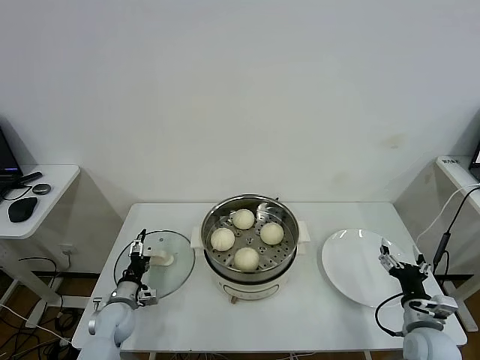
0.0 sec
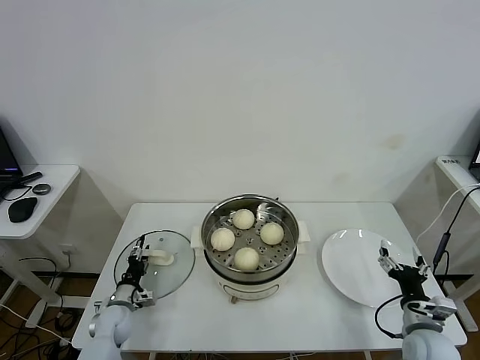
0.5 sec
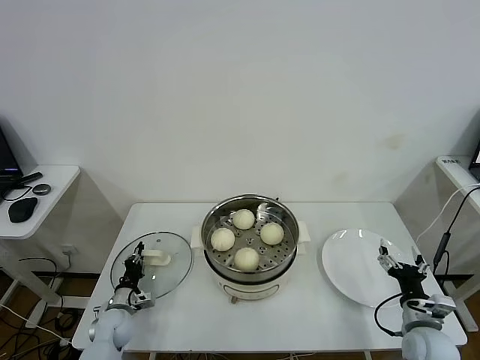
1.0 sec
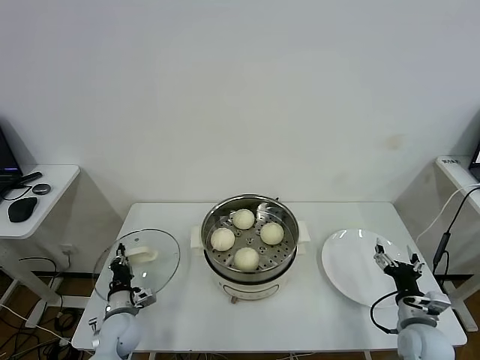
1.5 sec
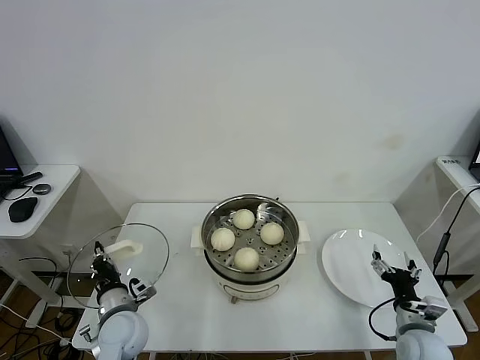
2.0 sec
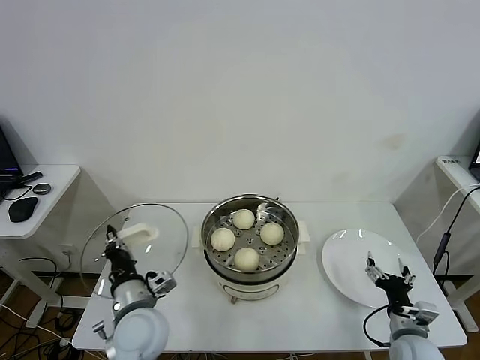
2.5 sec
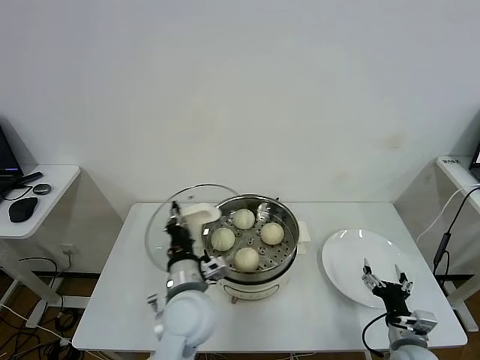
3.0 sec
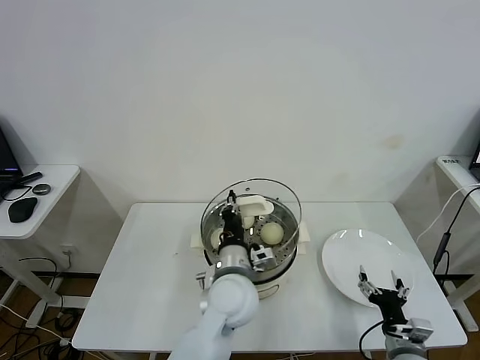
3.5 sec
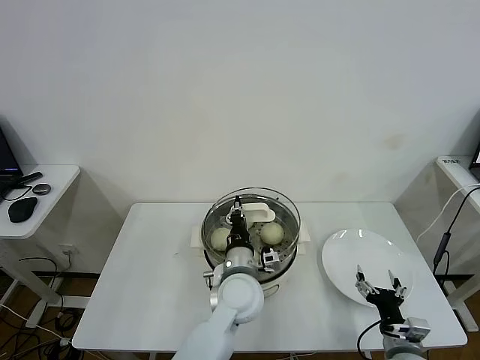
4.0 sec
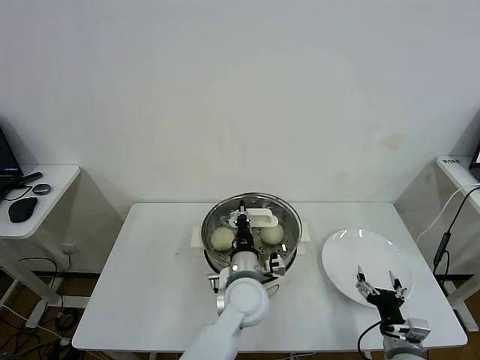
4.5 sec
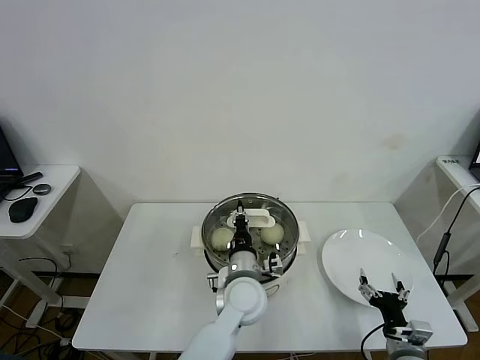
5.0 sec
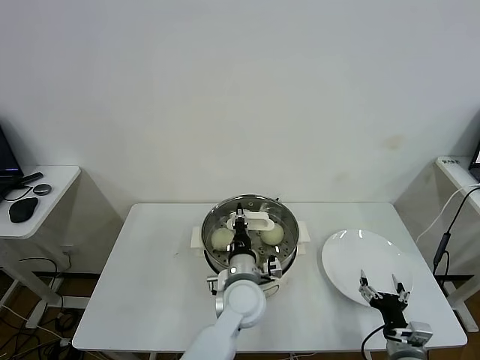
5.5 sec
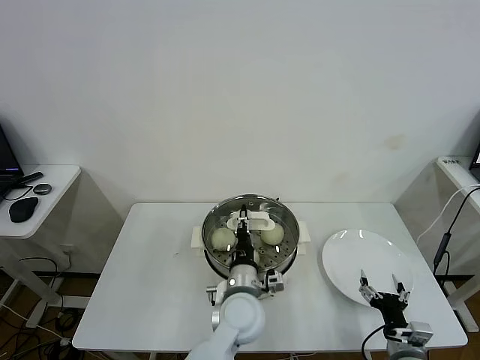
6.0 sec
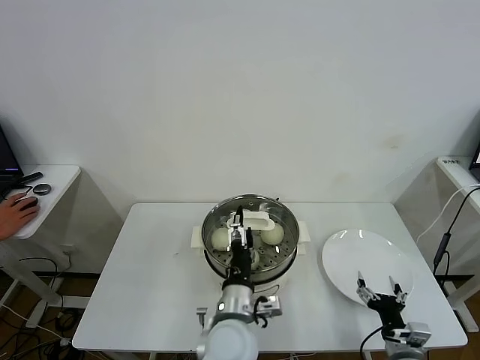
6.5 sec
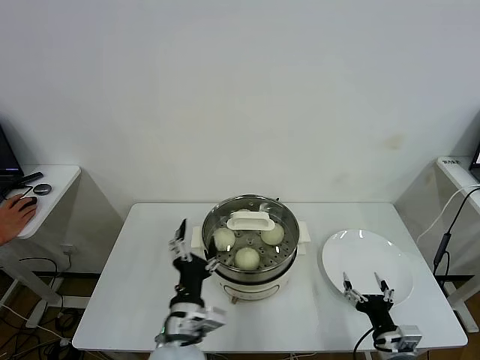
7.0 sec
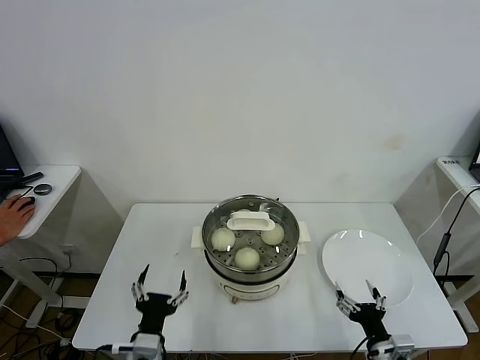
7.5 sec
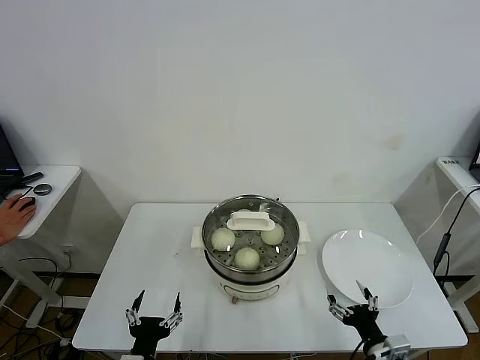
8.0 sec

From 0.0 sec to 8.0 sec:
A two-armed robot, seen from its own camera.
Task of the whole recording: take steamed baozi put them in steamer.
Step, from 1.5 sec to 6.0 sec: Place the pot lid on the steamer with left gripper.
From 0.0 sec to 2.0 sec: The left gripper goes some 15 cm upward, to the right and backward, and closes its fingers.
From 2.0 sec to 4.0 sec: The right gripper ends up some 5 cm from where it was; the left gripper heads to the right, covering approximately 25 cm.
From 4.0 sec to 6.0 sec: The grippers make only small movements.
From 6.0 sec to 8.0 sec: The right gripper moves about 5 cm. The left gripper is displaced to the left and backward by roughly 25 cm, and opens its fingers.

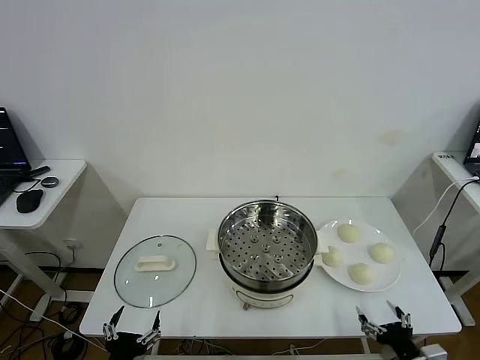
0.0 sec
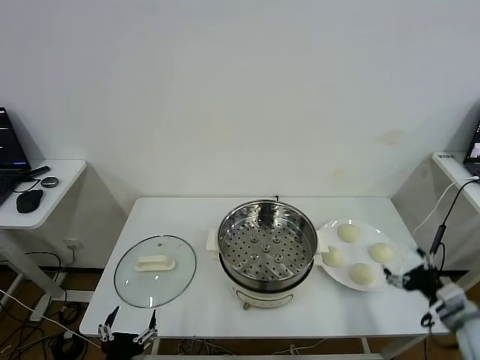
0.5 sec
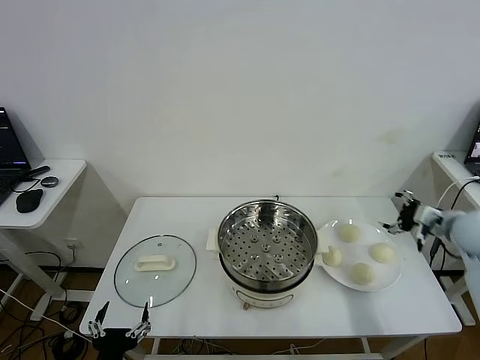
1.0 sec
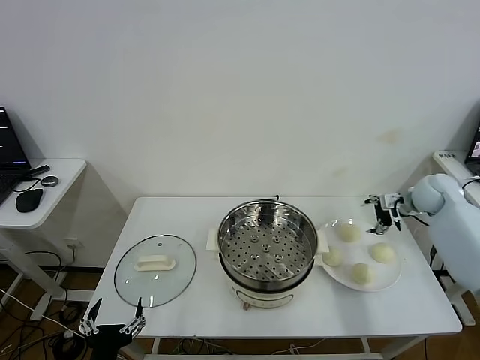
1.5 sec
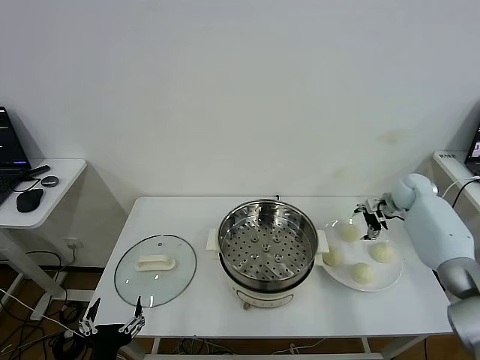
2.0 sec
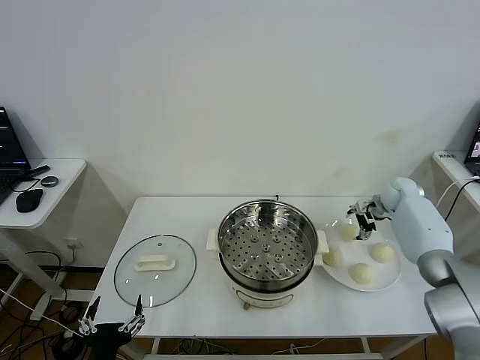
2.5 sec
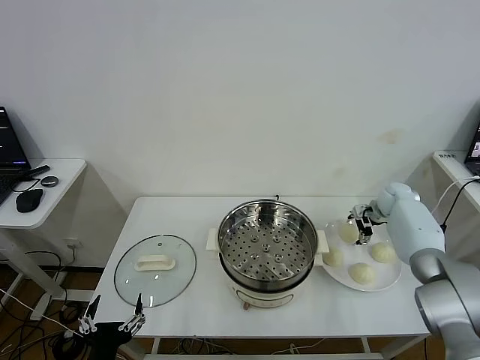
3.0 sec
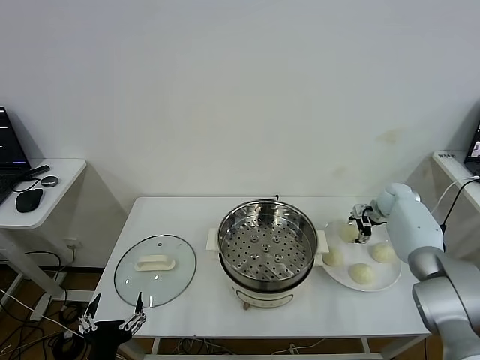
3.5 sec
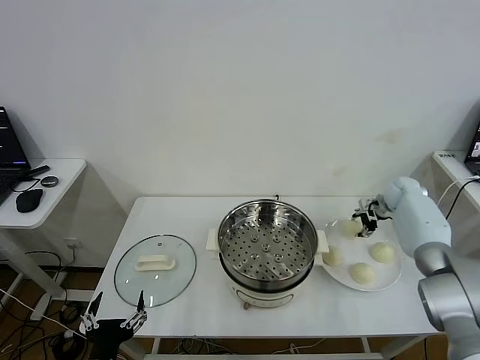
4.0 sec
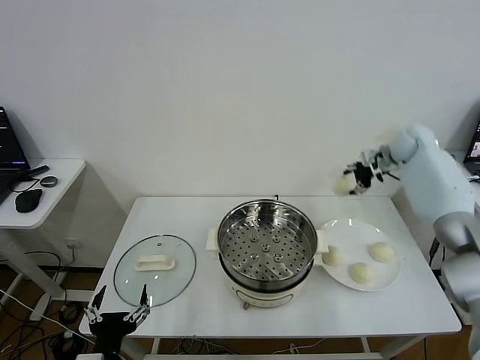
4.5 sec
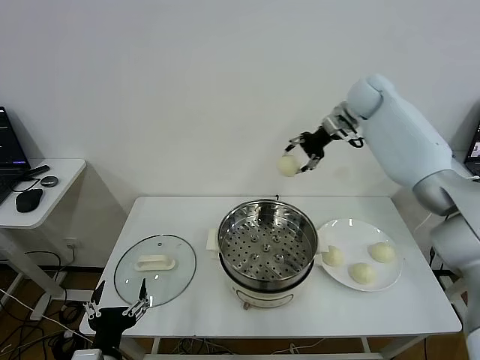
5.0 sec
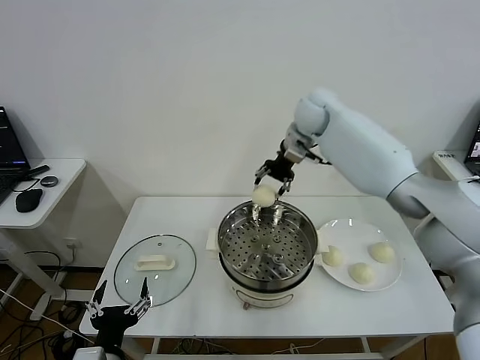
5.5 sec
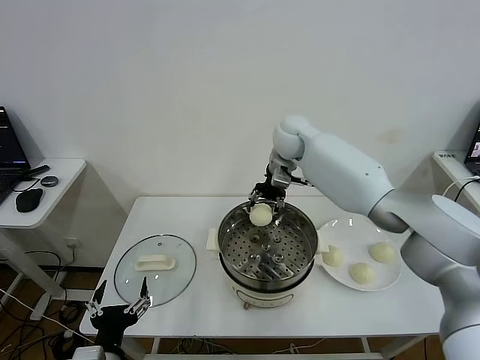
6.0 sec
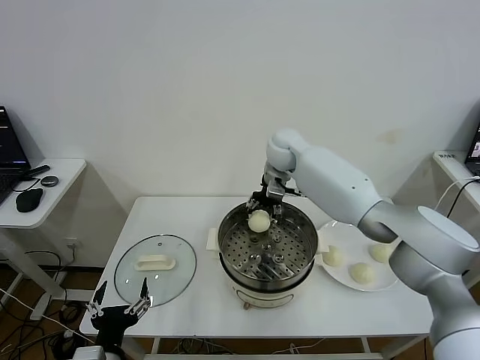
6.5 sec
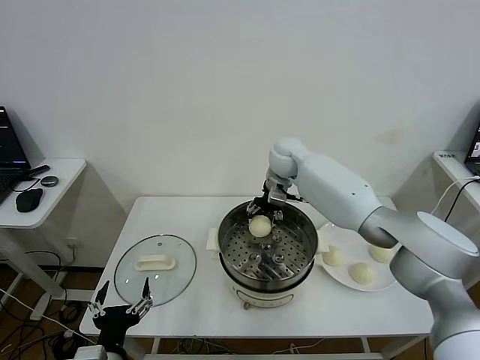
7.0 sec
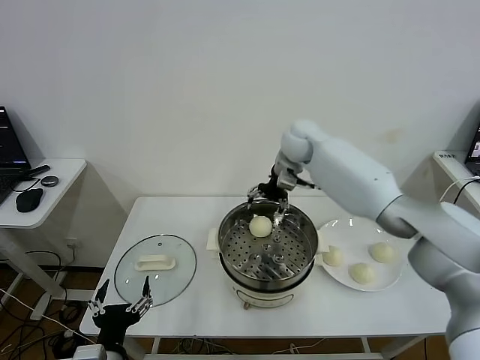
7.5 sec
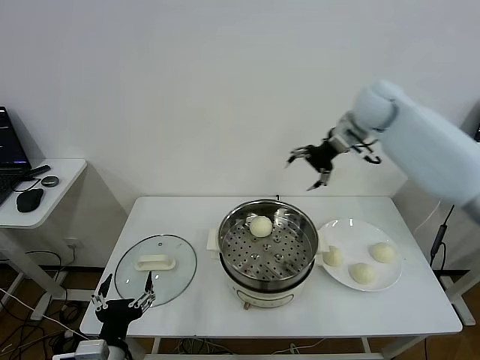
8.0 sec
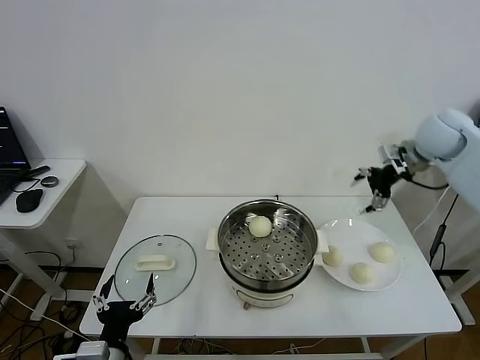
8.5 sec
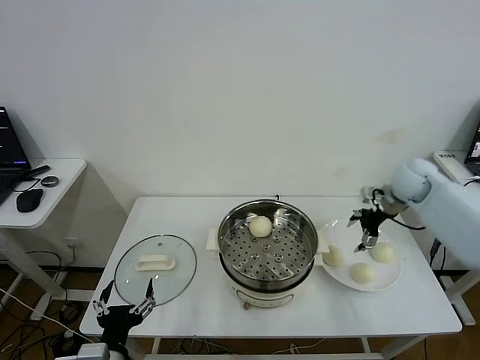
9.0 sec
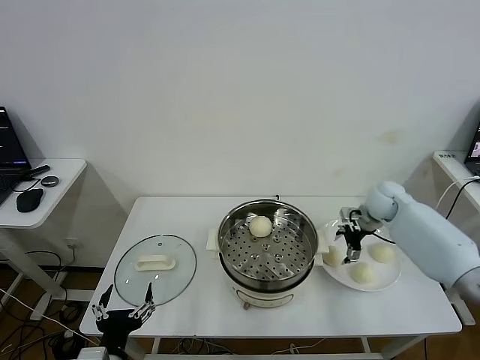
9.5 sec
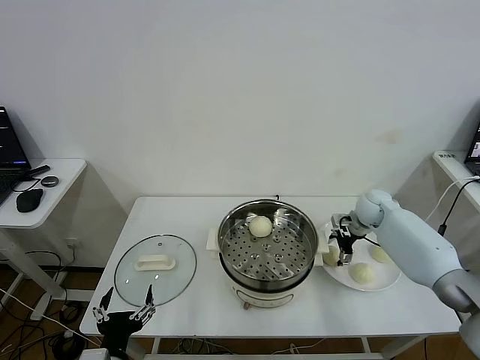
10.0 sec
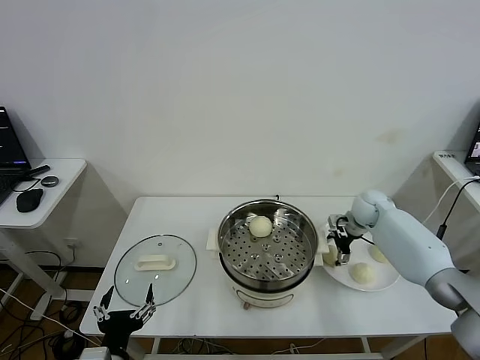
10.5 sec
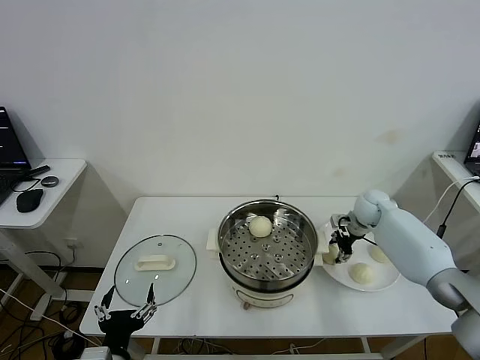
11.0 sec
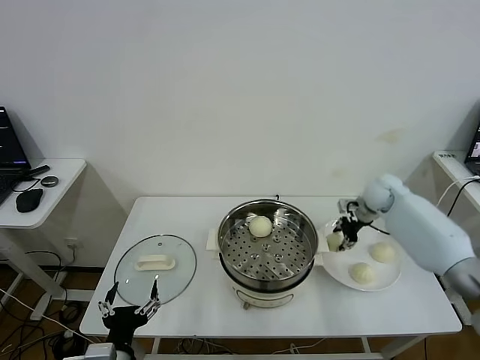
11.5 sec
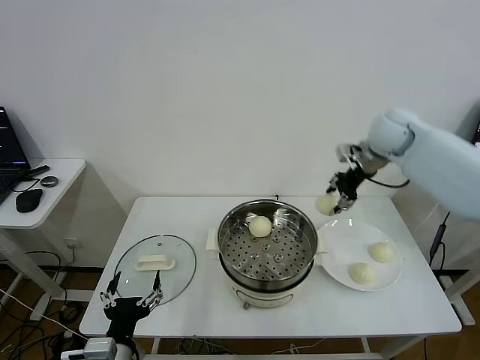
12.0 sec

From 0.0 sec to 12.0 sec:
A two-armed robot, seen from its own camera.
Task of the whole recording: take steamed baozi put them in steamer.
Step, from 0.0 sec to 3.5 sec: Grasp the baozi in the plate with right gripper.
Step, from 4.0 sec to 7.0 sec: Place the baozi on the steamer with right gripper.
Step, from 7.5 sec to 11.0 sec: Grasp the baozi in the plate with right gripper.
From 2.0 sec to 4.0 sec: The right gripper closes up.
From 4.0 sec to 6.0 sec: The right gripper is displaced to the left and upward by about 40 cm.
From 6.0 sec to 8.0 sec: The right gripper goes about 20 cm to the right and upward, and opens its fingers.
From 8.0 sec to 10.0 sec: The right gripper goes about 25 cm downward.
From 10.0 sec to 12.0 sec: The right gripper heads upward, covering some 25 cm, and closes.

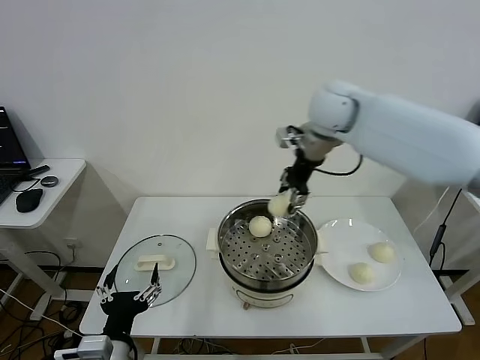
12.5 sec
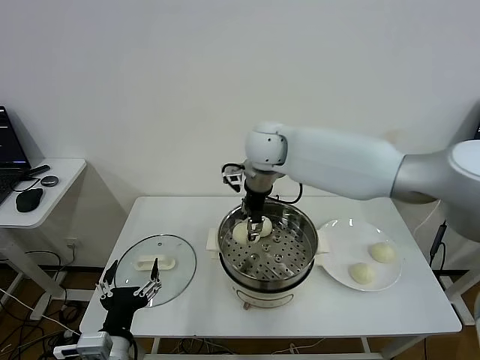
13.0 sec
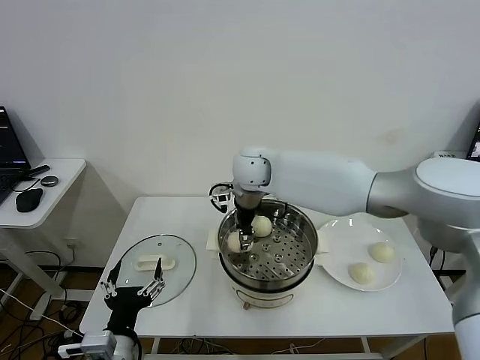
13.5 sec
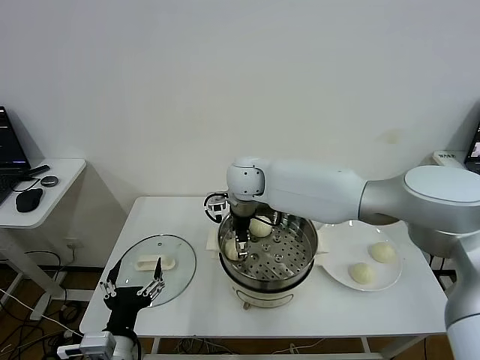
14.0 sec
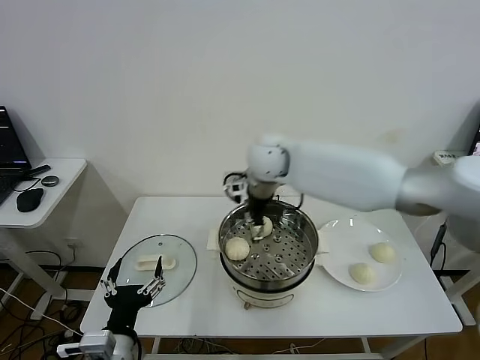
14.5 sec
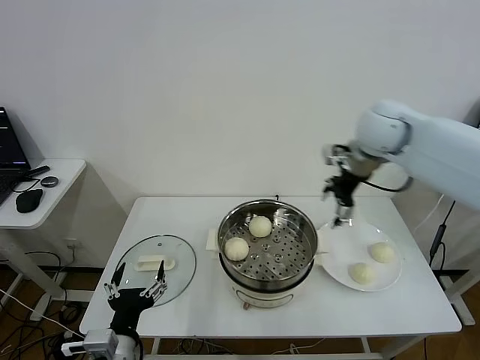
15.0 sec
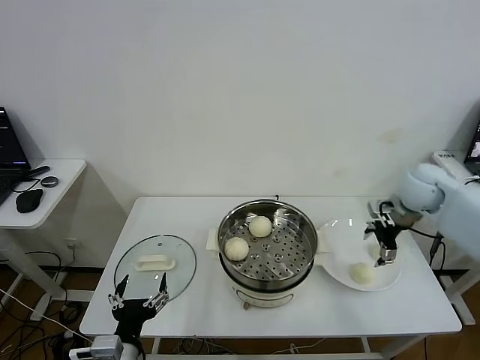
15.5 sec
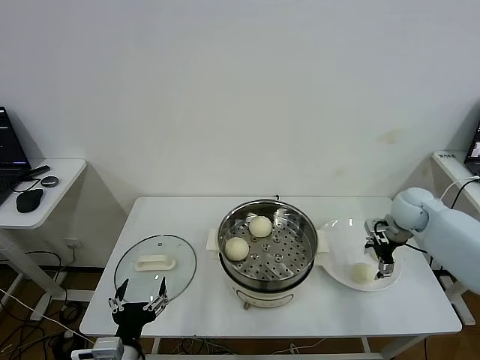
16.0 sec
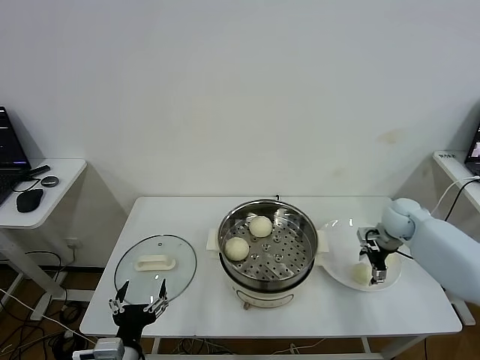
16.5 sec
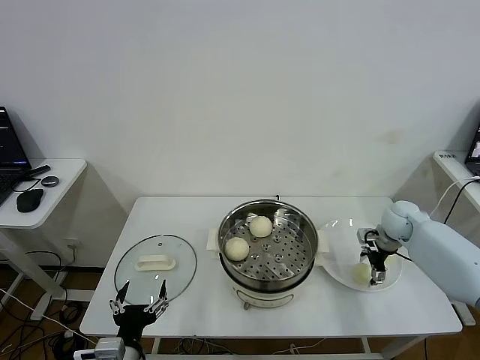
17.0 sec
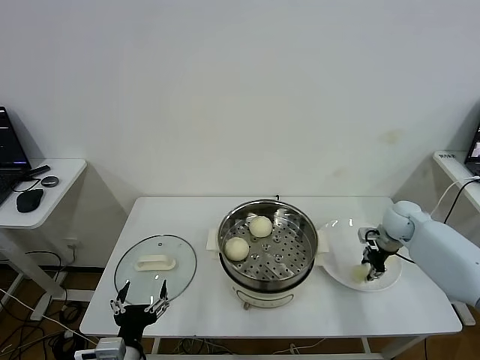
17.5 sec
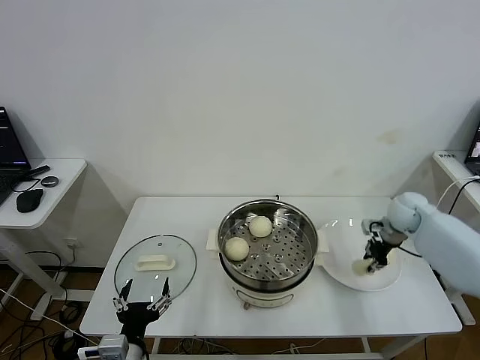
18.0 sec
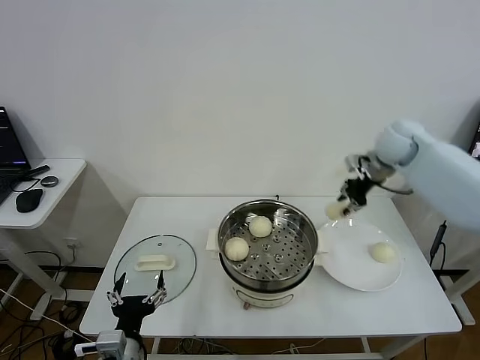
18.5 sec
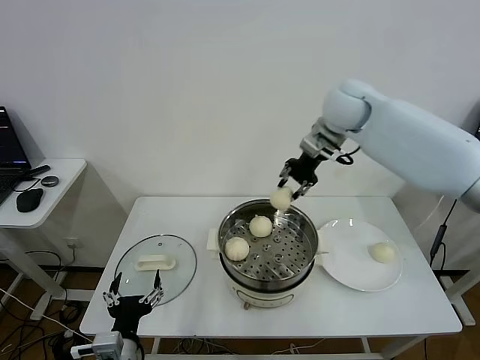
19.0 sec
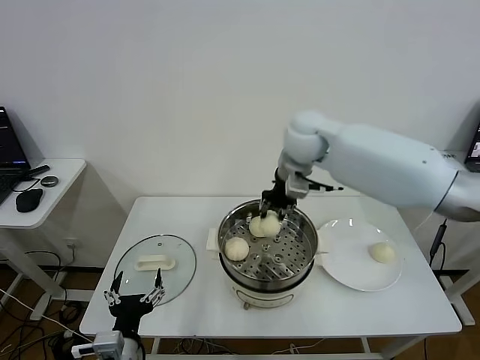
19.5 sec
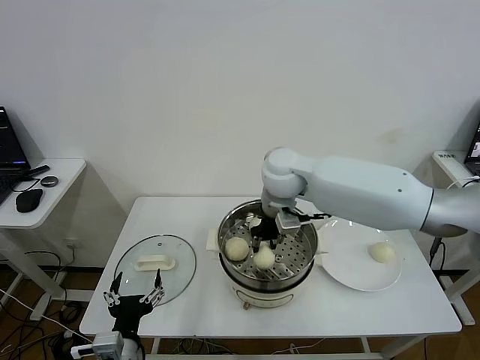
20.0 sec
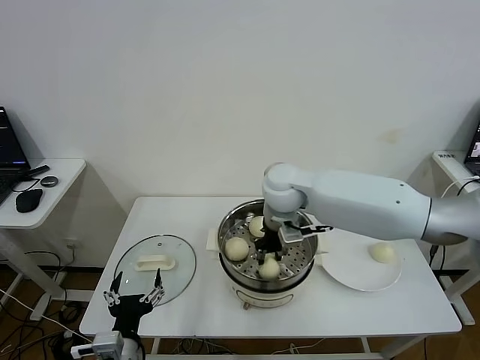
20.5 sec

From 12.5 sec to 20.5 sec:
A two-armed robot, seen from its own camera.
Task of the whole recording: take steamed baozi put them in steamer.
Step, from 12.5 sec to 14.0 sec: Place the baozi on the steamer with right gripper.
Step, from 14.5 sec to 17.0 sec: Grasp the baozi in the plate with right gripper.
From 12.5 sec to 14.5 sec: The right gripper shifts roughly 15 cm to the left and downward, and opens.
From 14.5 sec to 16.5 sec: The right gripper moves to the right and downward, approximately 40 cm.
From 16.5 sec to 18.5 sec: The right gripper moves upward, about 20 cm, and closes.
From 18.5 sec to 20.5 sec: The right gripper travels to the left by approximately 25 cm.
